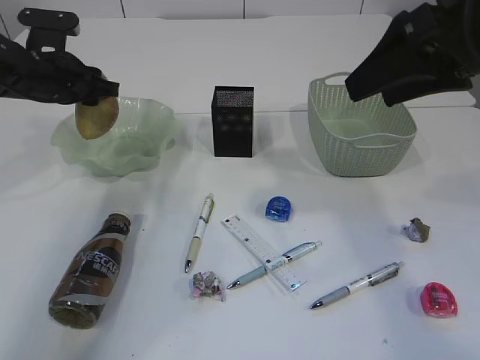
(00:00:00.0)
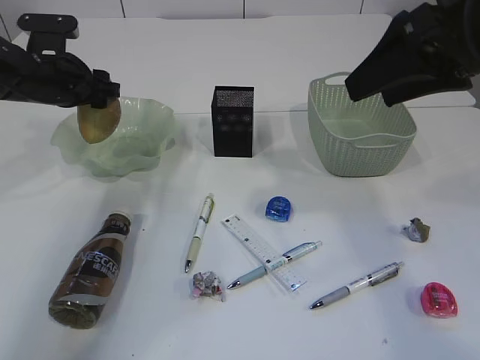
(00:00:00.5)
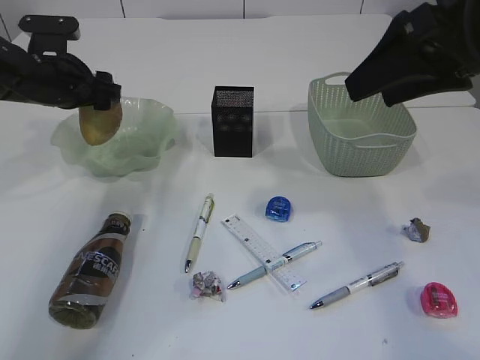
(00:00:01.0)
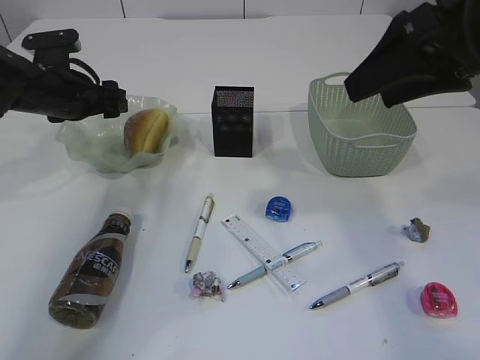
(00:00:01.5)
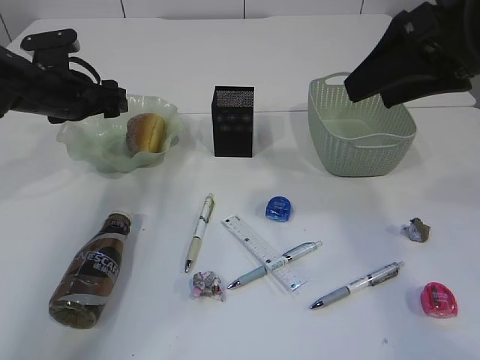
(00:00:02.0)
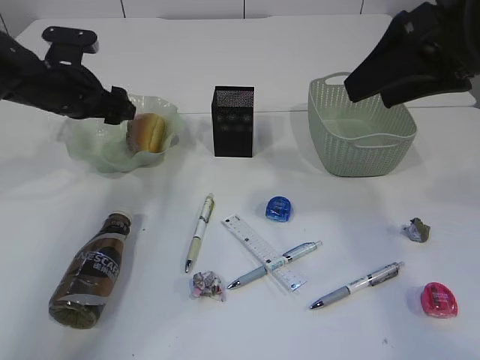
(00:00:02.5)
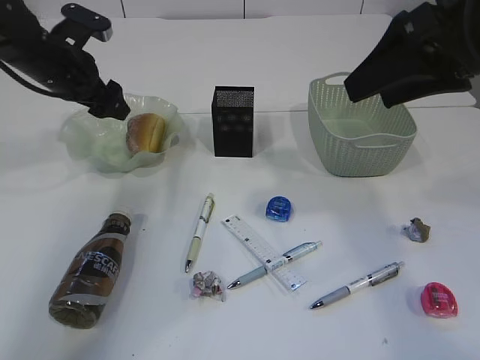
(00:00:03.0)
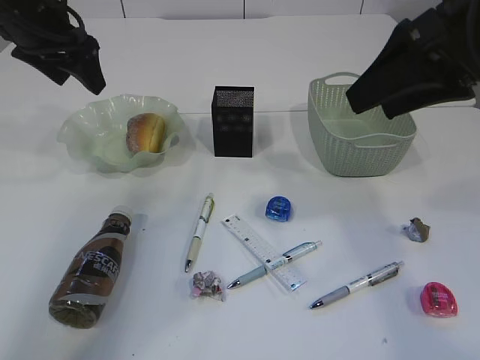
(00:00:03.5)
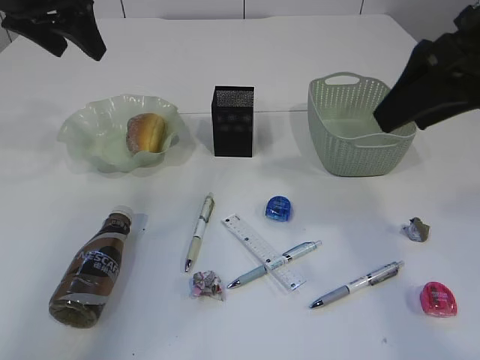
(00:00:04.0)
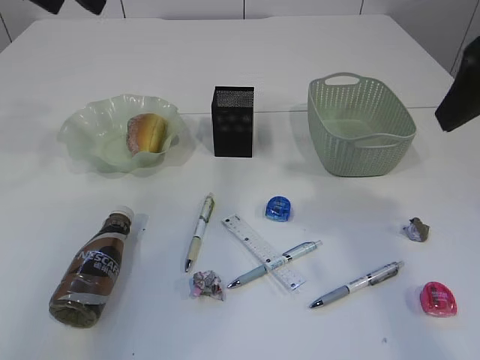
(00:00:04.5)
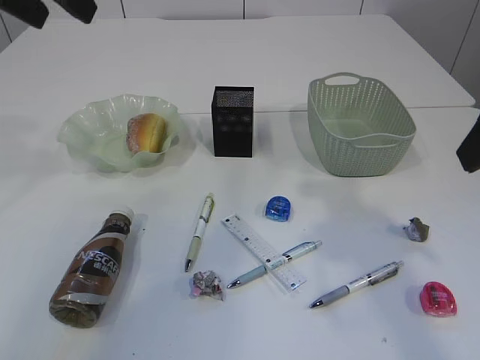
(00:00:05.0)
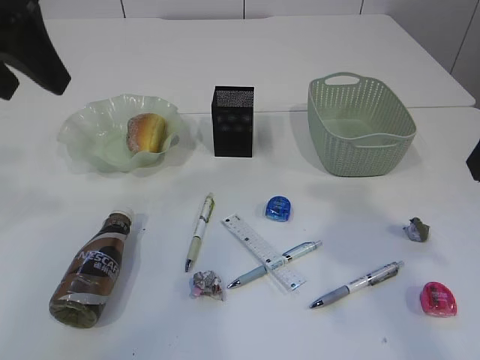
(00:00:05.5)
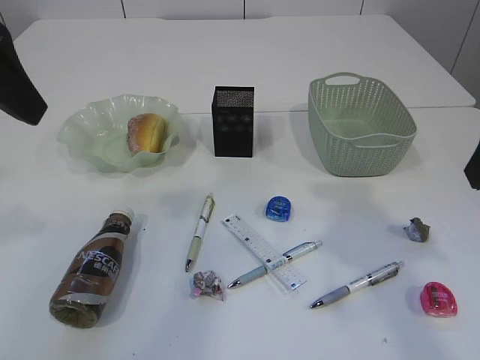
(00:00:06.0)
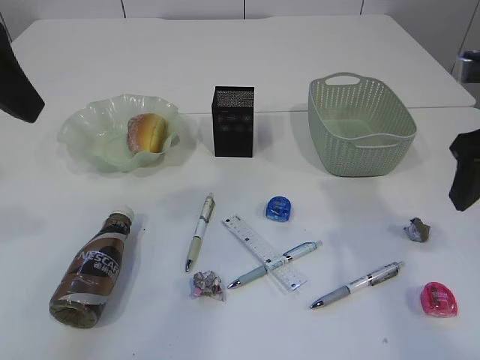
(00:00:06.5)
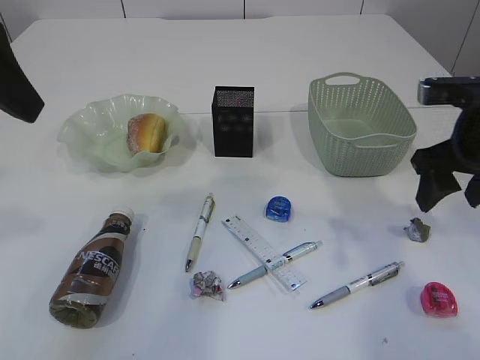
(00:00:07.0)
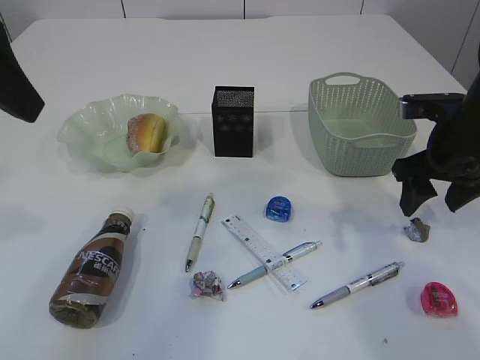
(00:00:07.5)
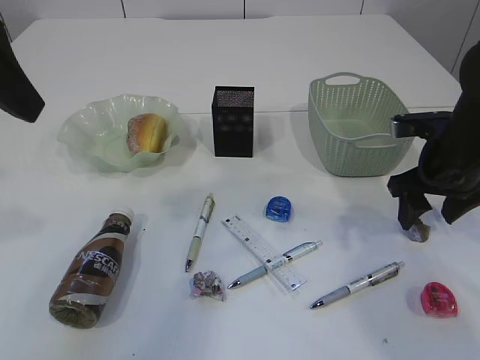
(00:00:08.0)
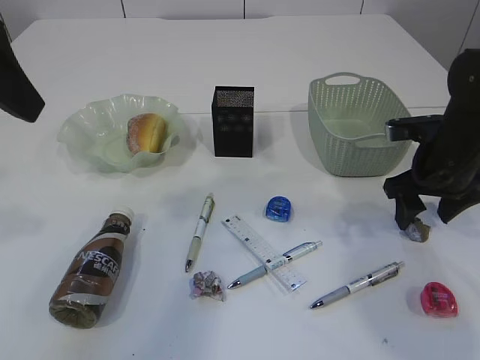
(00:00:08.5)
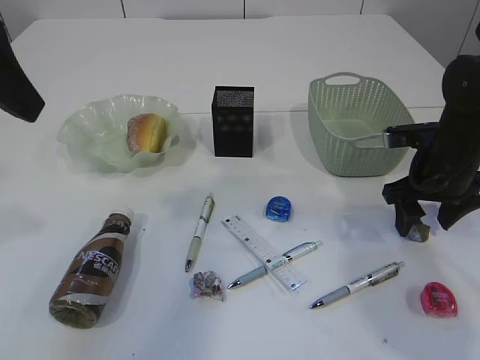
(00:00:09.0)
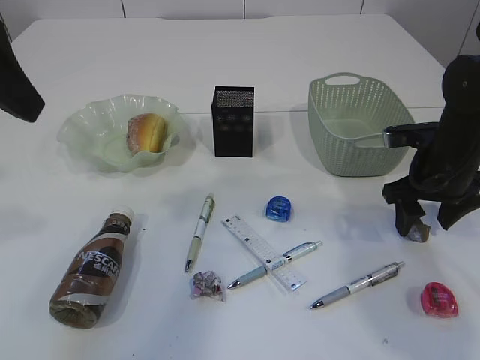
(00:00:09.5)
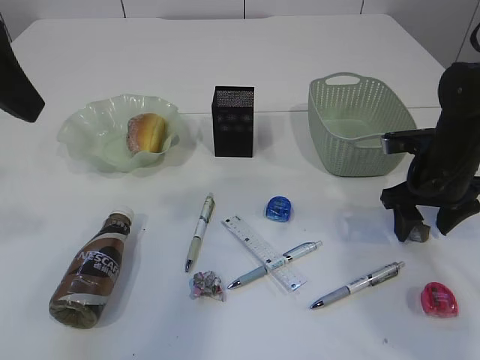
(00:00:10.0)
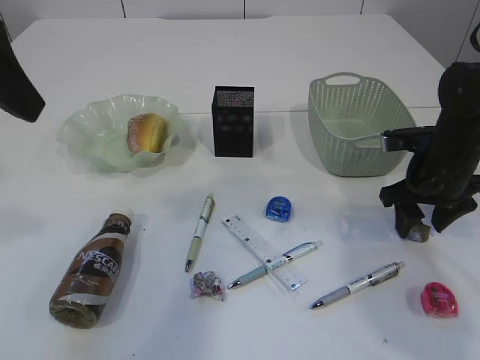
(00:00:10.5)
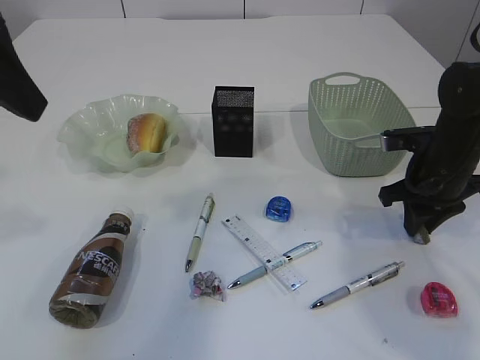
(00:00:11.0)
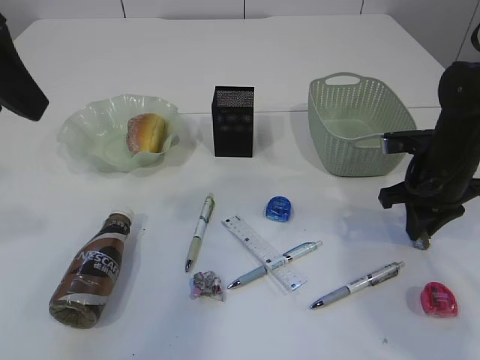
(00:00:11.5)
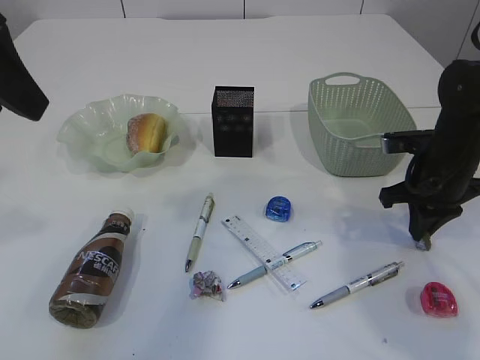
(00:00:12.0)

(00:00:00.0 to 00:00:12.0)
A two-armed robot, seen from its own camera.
Step, 00:00:00.0 - 00:00:03.0: place the bread in the plate.
00:00:00.0 - 00:00:02.0: The left gripper opens its fingers.
00:00:02.0 - 00:00:04.0: The left gripper moves upward, some 15 cm.
00:00:04.0 - 00:00:06.0: The left gripper is displaced backward by roughly 15 cm; the right gripper goes about 5 cm backward.
00:00:06.0 - 00:00:08.0: The right gripper goes some 20 cm downward and forward.
00:00:08.0 - 00:00:10.0: The grippers make only small movements.
00:00:10.0 - 00:00:12.0: The right gripper closes.

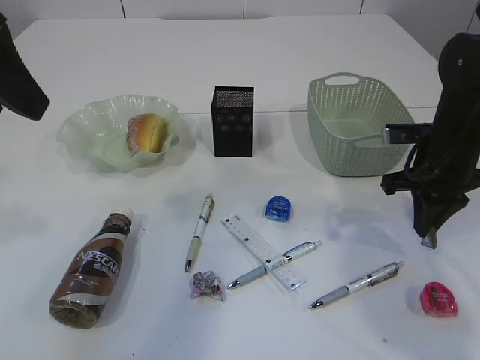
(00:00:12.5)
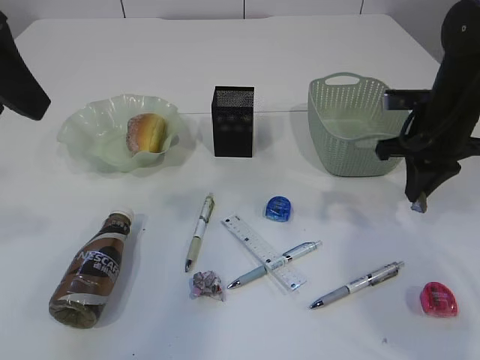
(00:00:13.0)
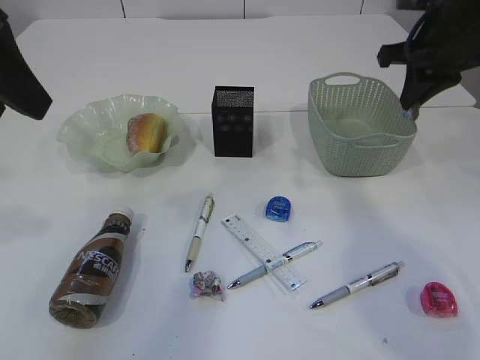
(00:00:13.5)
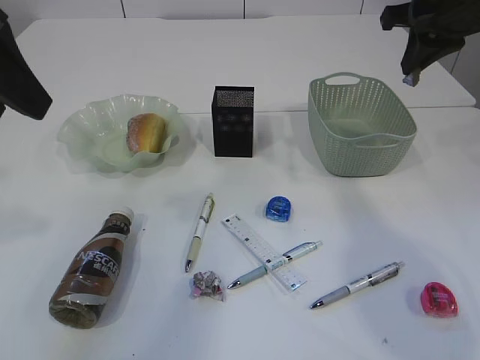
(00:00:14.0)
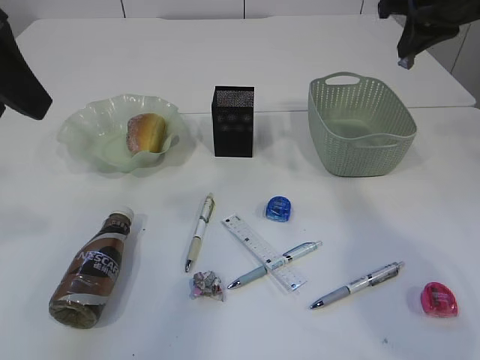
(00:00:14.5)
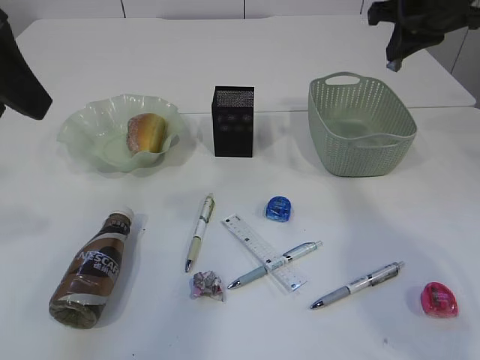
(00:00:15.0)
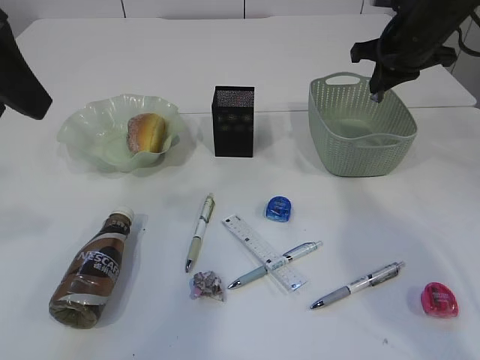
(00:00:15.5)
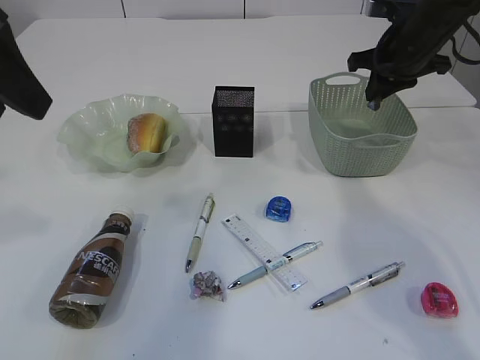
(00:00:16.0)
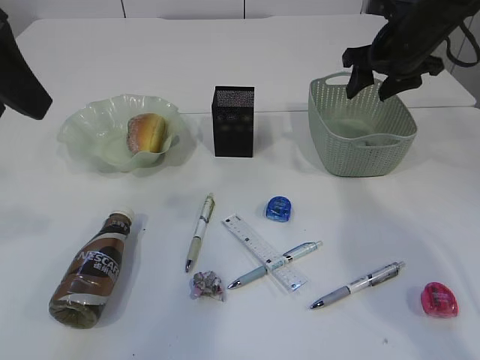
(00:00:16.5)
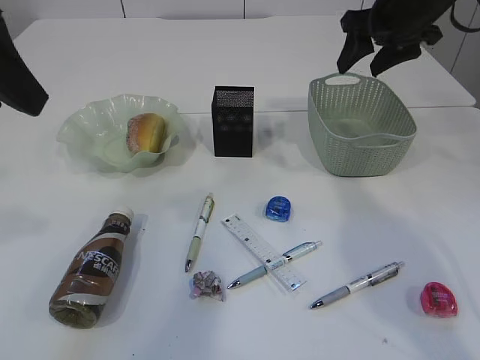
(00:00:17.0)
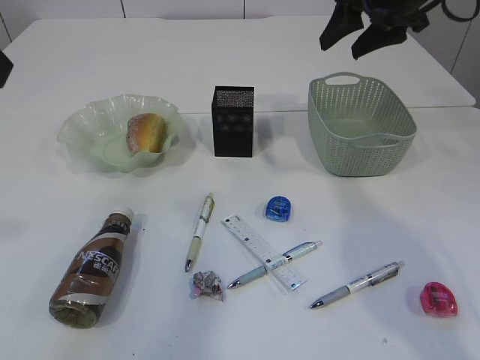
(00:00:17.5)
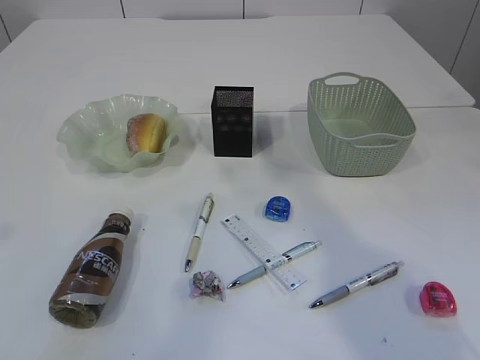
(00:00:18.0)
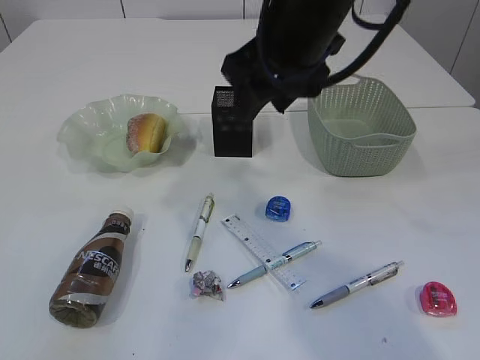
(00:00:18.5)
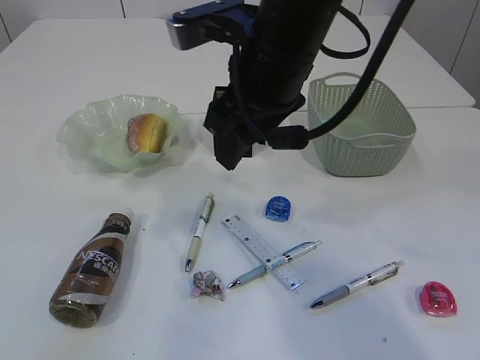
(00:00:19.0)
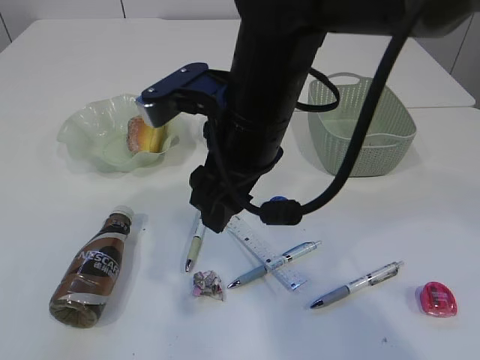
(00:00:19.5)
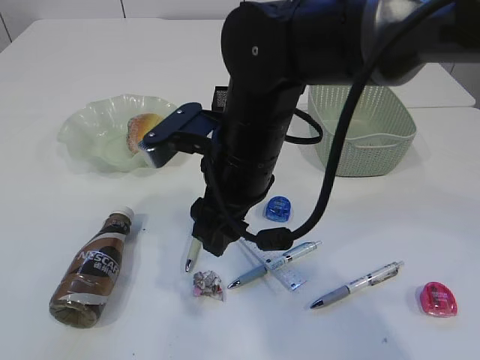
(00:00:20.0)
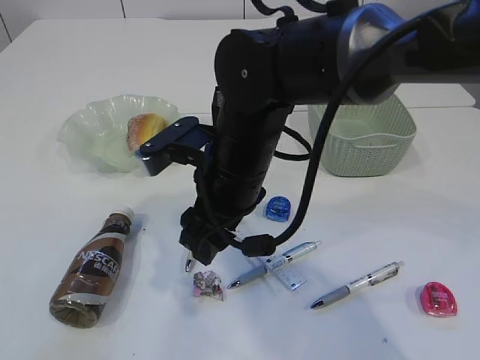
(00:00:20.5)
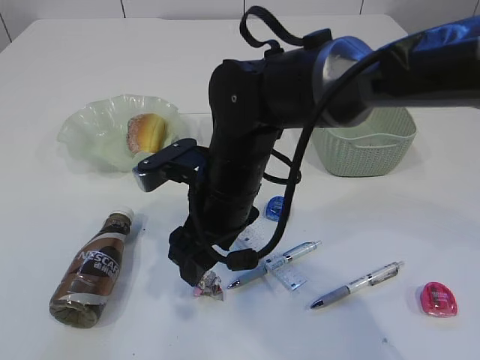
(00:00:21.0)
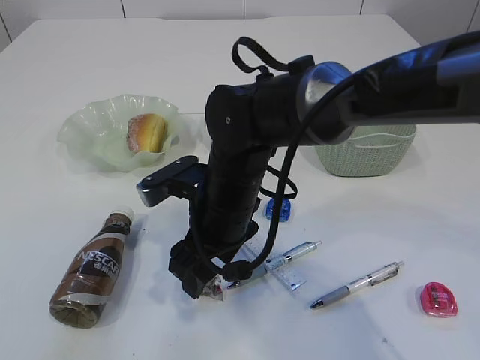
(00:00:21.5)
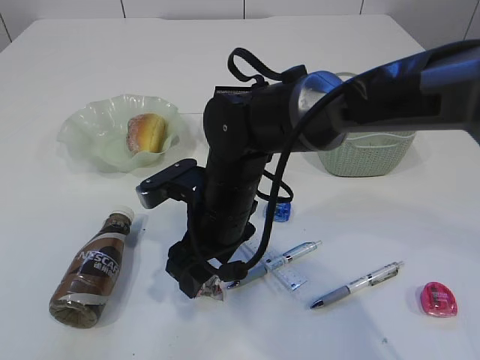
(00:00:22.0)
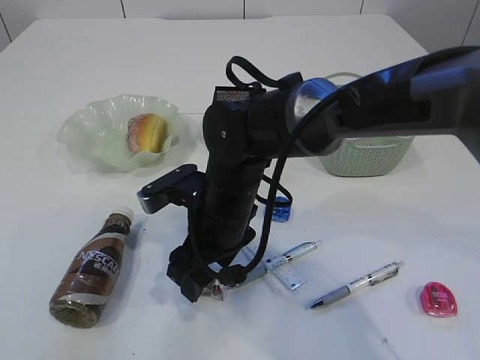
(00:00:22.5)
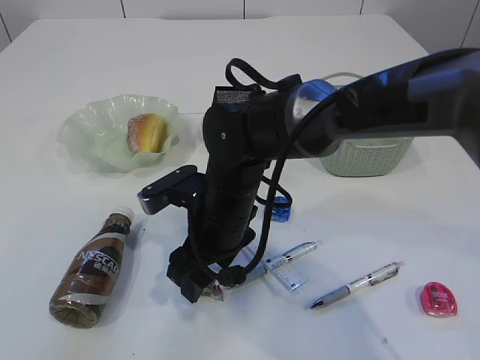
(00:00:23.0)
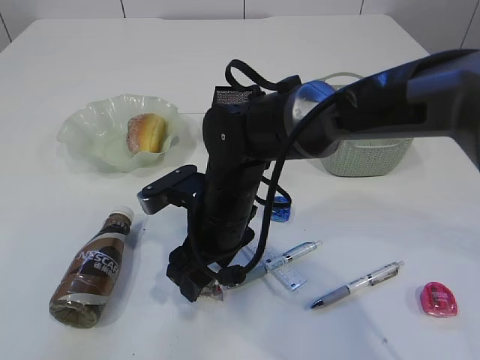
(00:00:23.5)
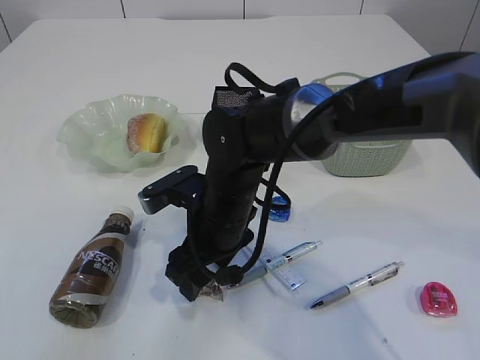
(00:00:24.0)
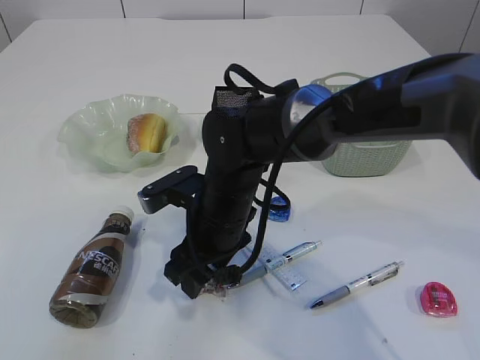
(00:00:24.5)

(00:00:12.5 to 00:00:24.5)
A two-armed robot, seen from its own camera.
Step, 00:00:13.5 - 00:00:17.0: Place the waste paper in the basket.
00:00:12.5 - 00:00:14.5: The right gripper is displaced upward by approximately 15 cm.
00:00:14.5 - 00:00:16.5: The right gripper is displaced downward by roughly 10 cm, and opens up.
00:00:16.5 - 00:00:18.5: The right gripper travels to the left, backward and upward by roughly 25 cm. The left gripper is displaced backward and upward by approximately 10 cm.
00:00:18.5 - 00:00:20.5: The right gripper heads downward and to the left, covering approximately 15 cm.
00:00:20.5 - 00:00:22.5: The right gripper heads downward, covering roughly 5 cm.
00:00:22.5 - 00:00:24.5: The two grippers keep their place.

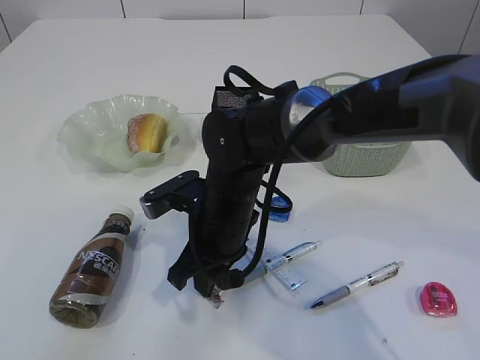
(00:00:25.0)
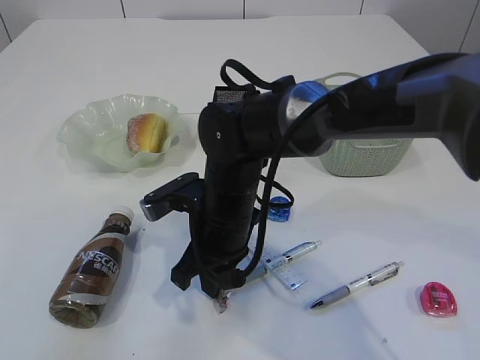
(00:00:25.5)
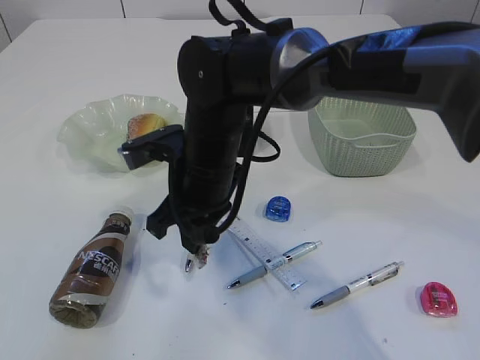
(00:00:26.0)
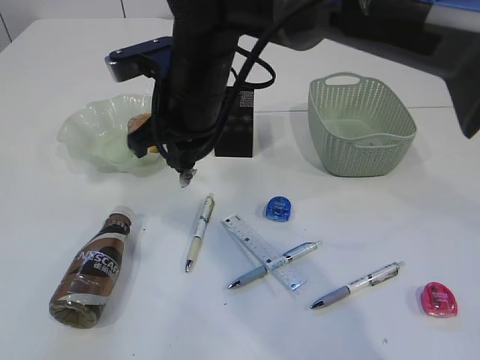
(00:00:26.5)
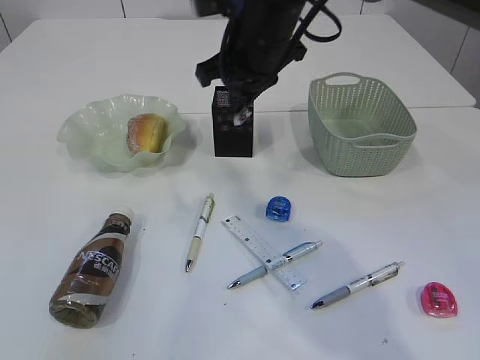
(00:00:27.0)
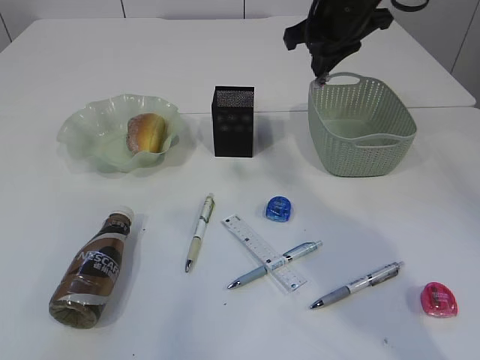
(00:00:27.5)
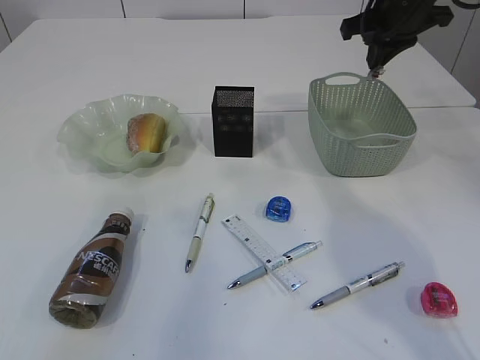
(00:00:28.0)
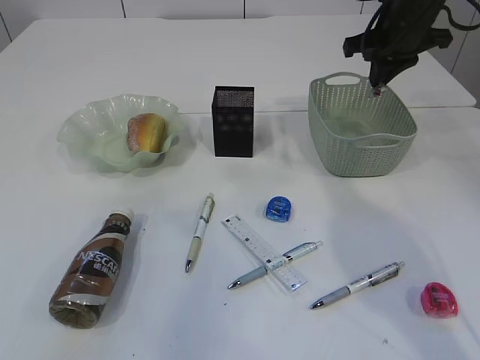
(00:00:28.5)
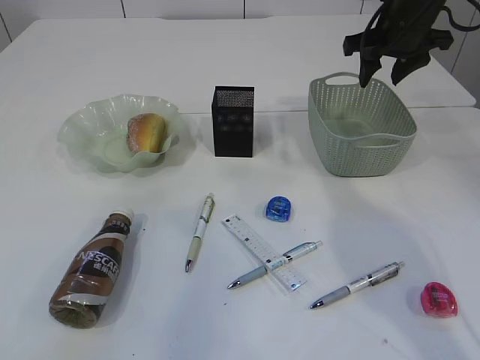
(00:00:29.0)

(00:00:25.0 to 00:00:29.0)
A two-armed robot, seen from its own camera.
00:00:25.0 - 00:00:27.0: The right gripper is displaced upward and forward by roughly 20 cm.
00:00:27.0 - 00:00:29.0: The right gripper is displaced to the right by some 20 cm, and opens up.
